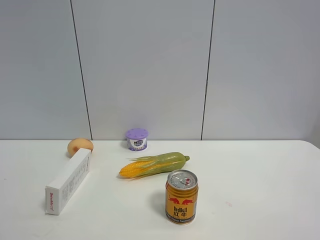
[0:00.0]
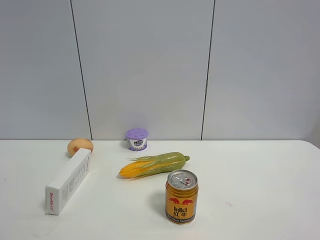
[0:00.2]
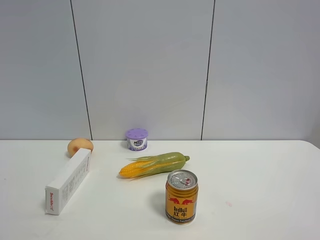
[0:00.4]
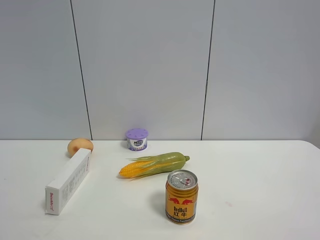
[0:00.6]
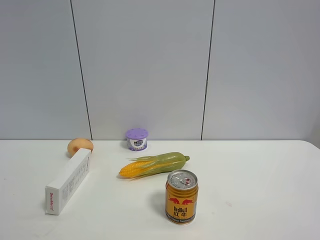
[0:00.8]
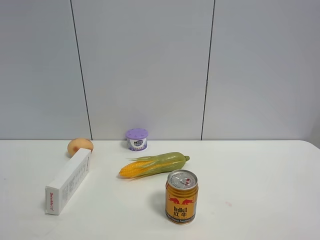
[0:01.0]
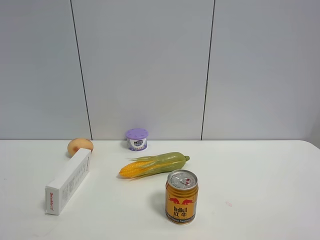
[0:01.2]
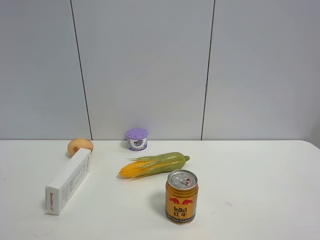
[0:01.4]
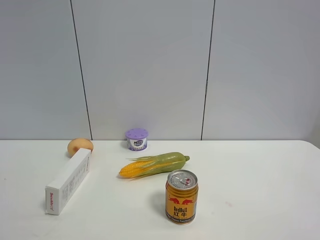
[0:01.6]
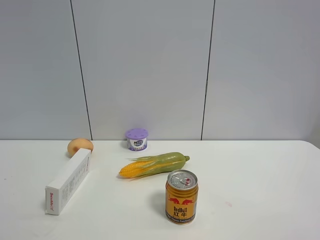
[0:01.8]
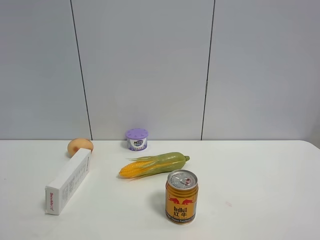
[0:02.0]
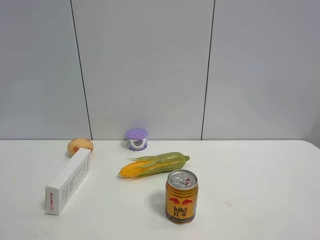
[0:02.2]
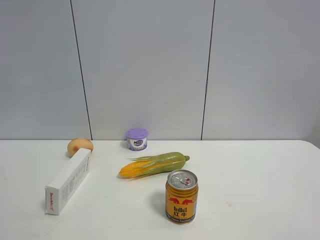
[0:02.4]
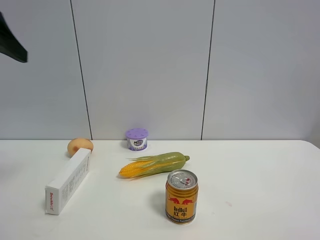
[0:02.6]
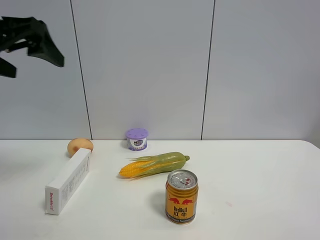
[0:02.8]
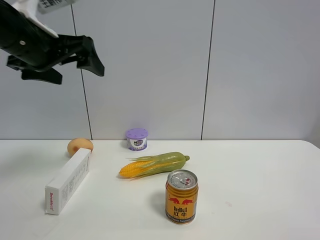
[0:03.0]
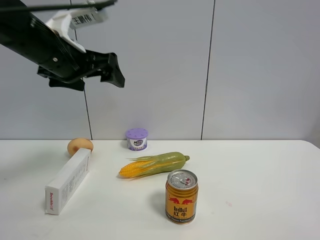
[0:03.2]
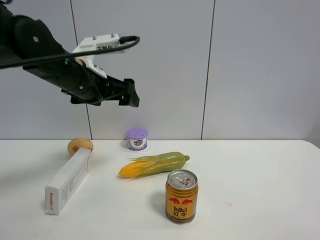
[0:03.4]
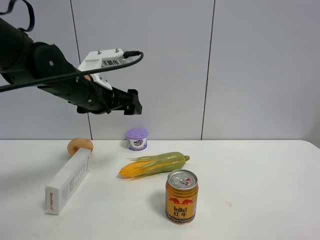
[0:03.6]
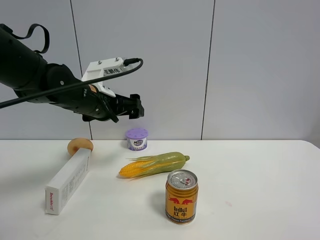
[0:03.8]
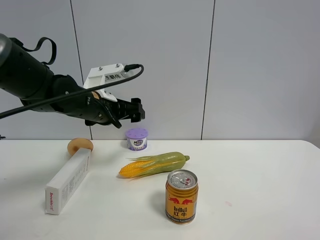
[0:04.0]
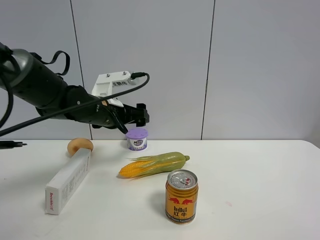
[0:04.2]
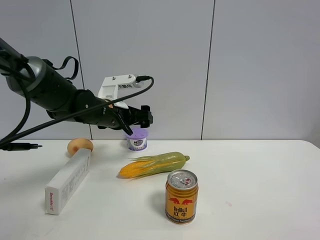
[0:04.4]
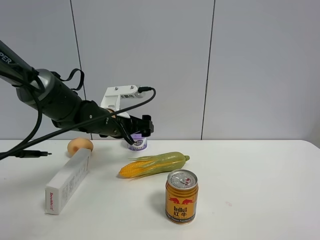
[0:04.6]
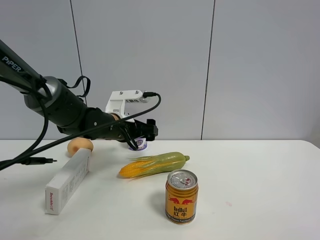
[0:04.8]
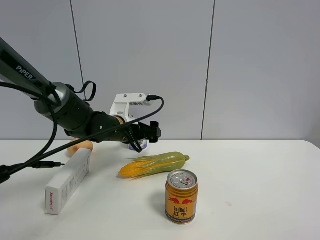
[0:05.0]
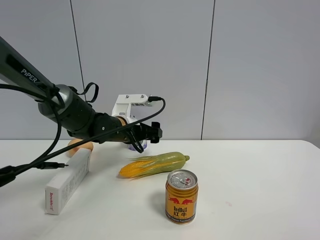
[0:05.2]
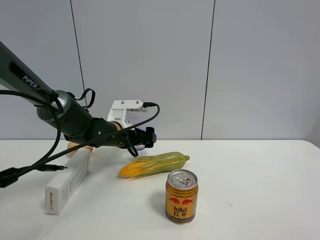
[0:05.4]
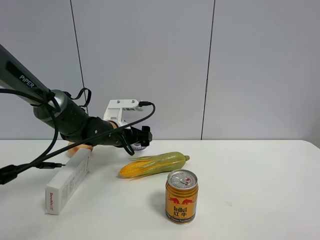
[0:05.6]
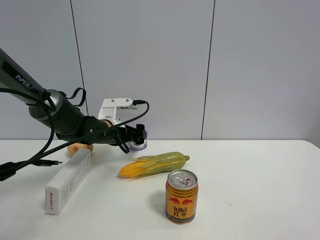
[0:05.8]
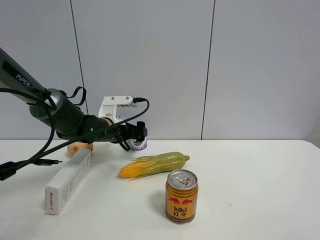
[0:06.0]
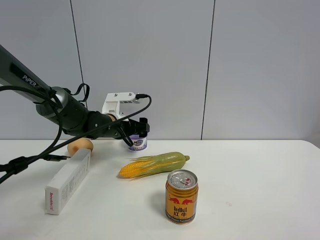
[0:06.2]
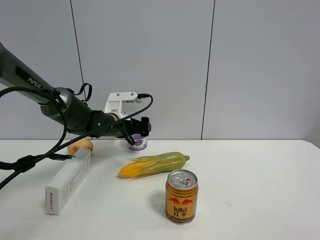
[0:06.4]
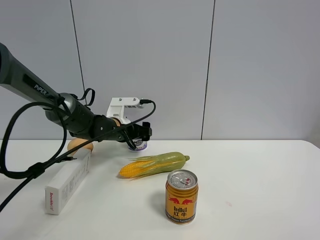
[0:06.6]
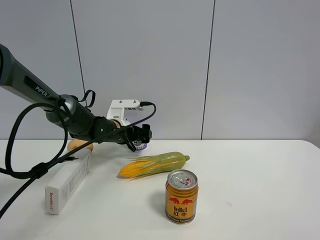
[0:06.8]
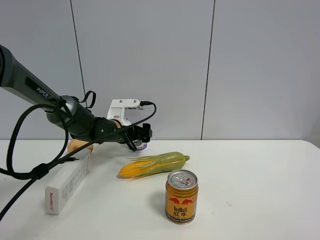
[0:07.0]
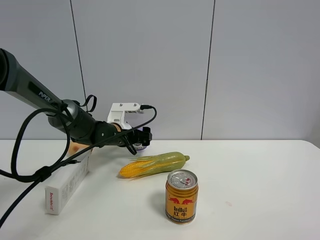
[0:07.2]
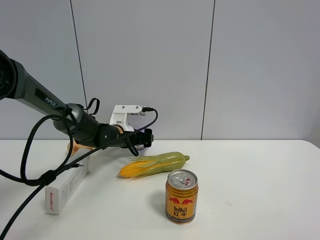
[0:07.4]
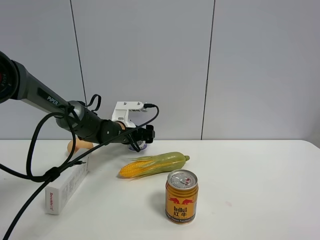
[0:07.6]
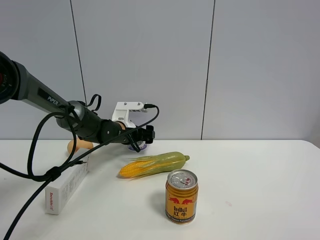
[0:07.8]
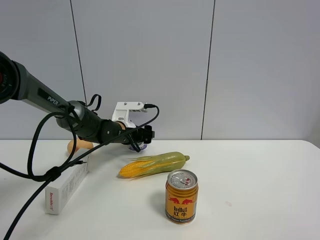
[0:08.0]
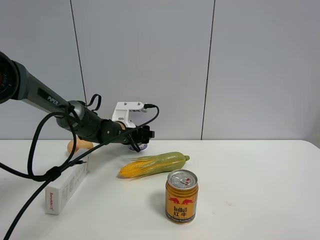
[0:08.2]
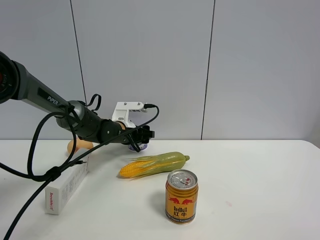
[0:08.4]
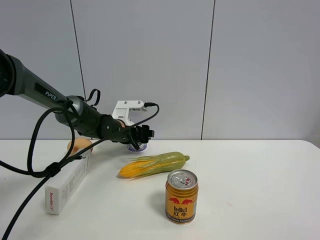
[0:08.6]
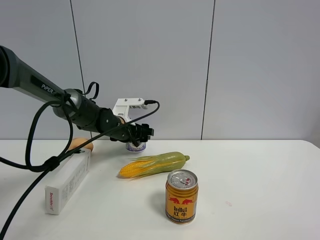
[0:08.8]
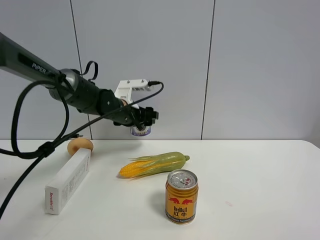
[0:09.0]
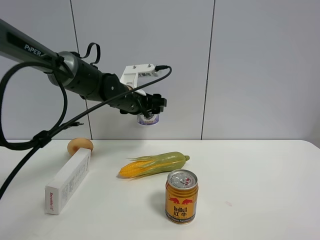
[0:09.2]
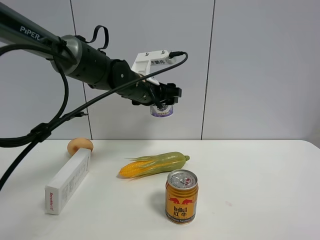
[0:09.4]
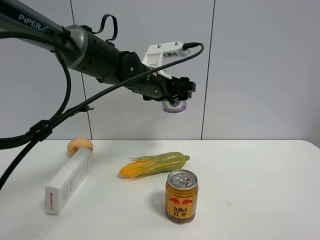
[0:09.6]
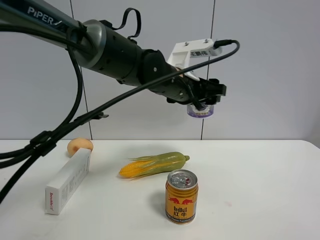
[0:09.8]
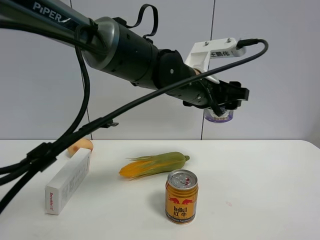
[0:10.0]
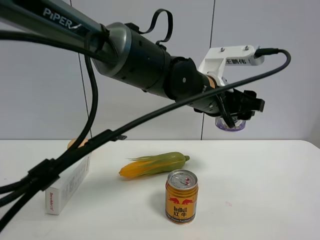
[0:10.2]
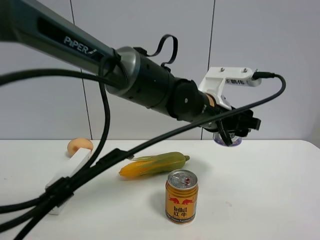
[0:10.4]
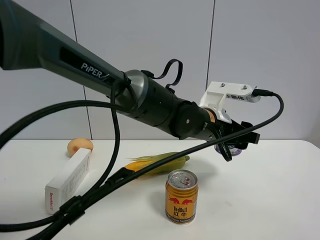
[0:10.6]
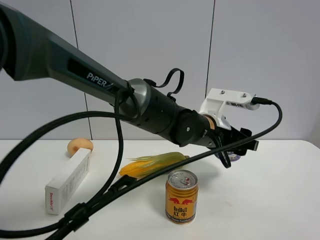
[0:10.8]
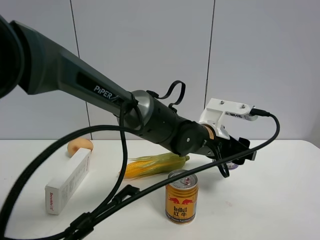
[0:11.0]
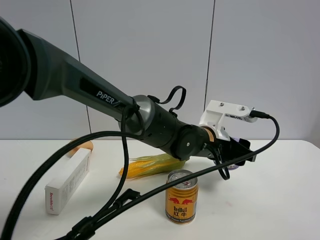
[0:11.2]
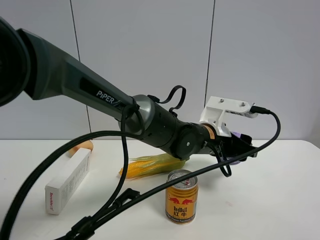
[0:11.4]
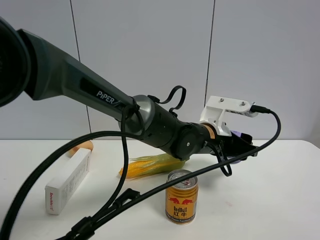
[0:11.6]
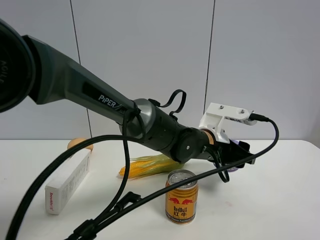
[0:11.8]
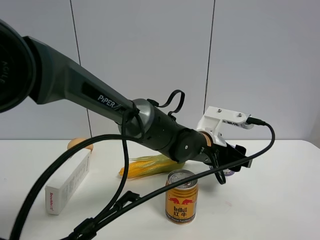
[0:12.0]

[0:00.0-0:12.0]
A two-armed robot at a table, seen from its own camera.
Task of the whole recording: the gripper move the object.
Step, 0.0 to 8.2 s: Grasp the Incense box with the left gripper.
0.0 to 1.6 s: Both grippers stay put.
1.6 to 3.0 s: The left gripper goes about 35 cm forward.
3.0 to 4.4 s: The left gripper goes some 20 cm downward, forward and to the right.
4.4 to 6.0 s: The left gripper changes place by approximately 5 cm.
6.0 to 7.6 s: The left gripper ends up approximately 5 cm from where it was.
7.6 to 9.0 s: The left gripper heads upward, covering about 10 cm, and closes.
9.0 to 10.4 s: The left gripper goes approximately 20 cm to the right and backward.
10.4 to 12.0 s: The left gripper heads downward, covering roughly 5 cm.

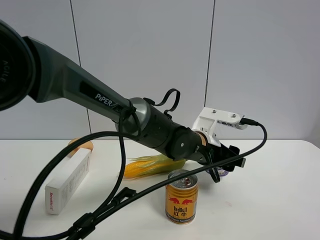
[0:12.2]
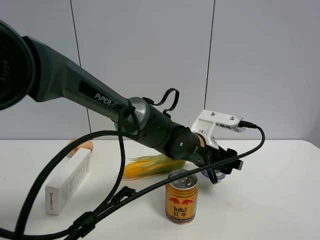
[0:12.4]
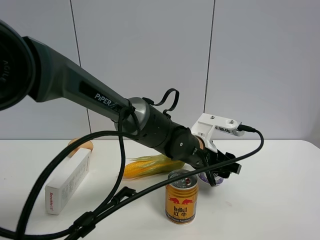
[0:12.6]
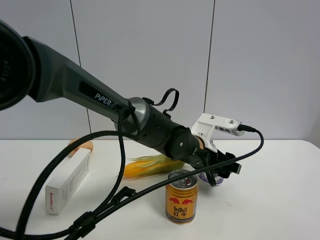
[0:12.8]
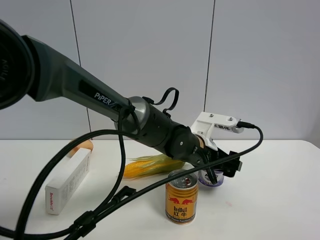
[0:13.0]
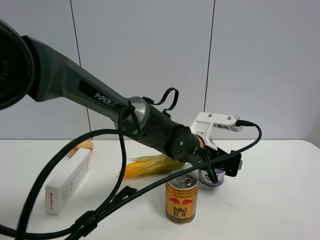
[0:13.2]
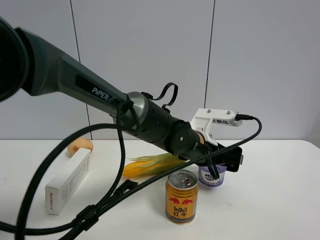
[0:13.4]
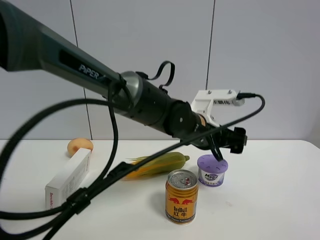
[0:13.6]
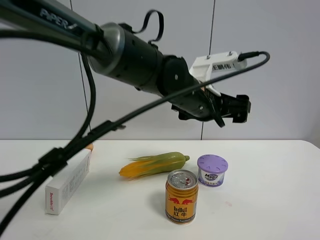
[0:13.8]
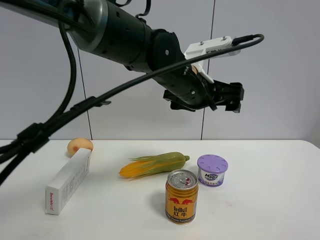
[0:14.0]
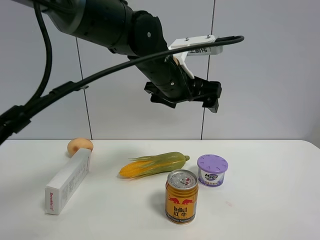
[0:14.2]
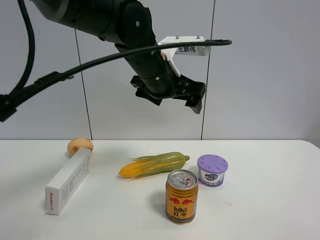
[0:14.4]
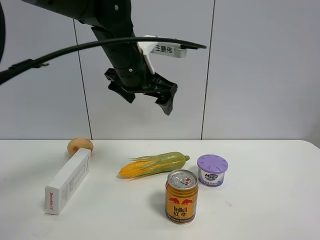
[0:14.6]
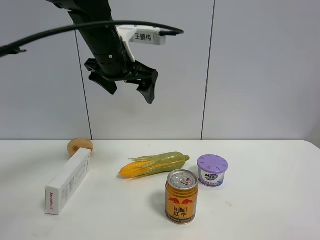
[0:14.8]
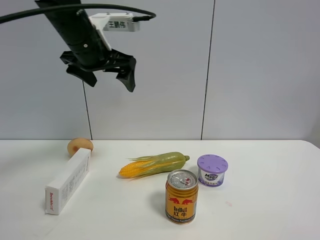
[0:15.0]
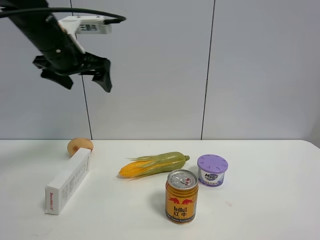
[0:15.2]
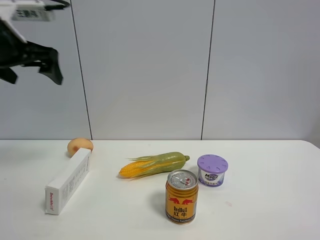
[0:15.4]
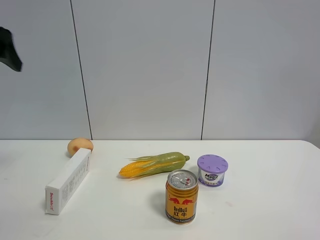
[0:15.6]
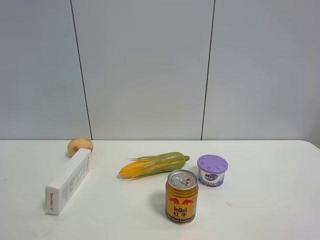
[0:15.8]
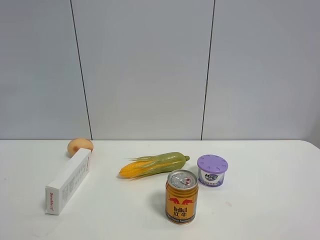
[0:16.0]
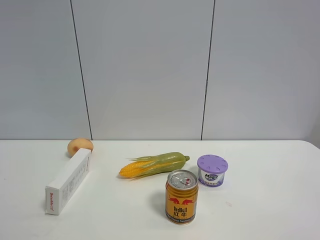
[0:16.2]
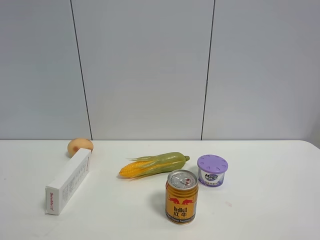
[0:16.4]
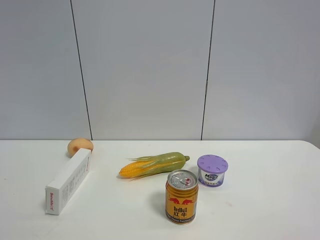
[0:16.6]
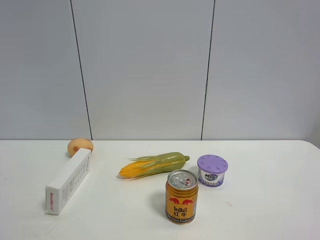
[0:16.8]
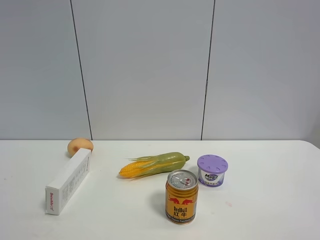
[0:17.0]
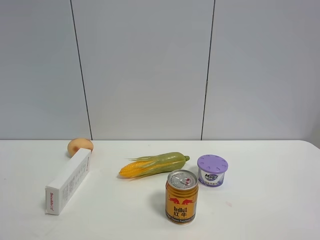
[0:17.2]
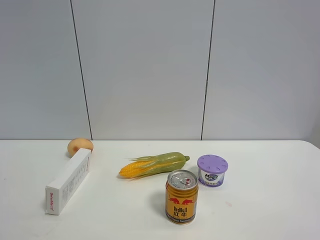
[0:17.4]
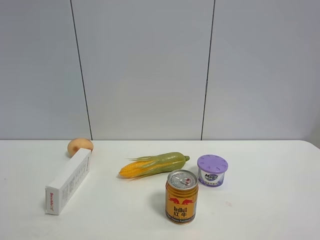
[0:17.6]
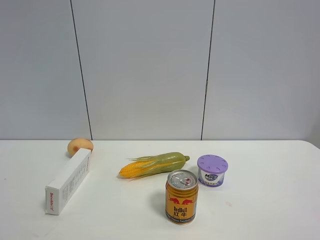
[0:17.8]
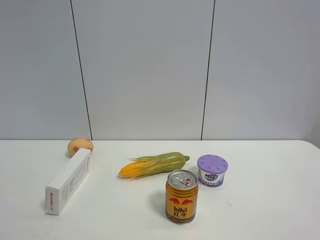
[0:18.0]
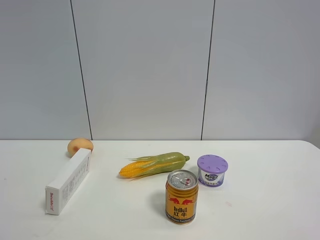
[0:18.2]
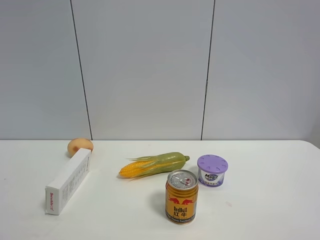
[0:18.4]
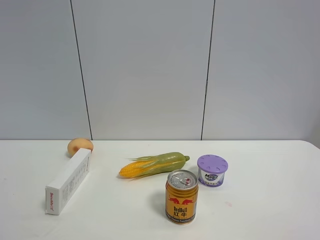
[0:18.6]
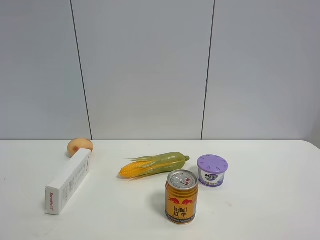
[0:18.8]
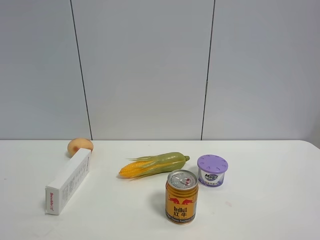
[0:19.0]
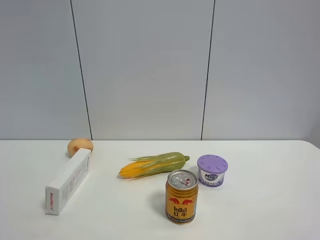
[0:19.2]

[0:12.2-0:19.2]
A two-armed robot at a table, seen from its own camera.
Task of the whole recording: the gripper move the object.
12.2 to 13.6 s: The left gripper shifts approximately 5 cm upward, and opens its fingers.
13.6 to 15.0 s: The left gripper shifts approximately 25 cm to the left and upward.
15.0 to 16.4 s: The left gripper goes about 40 cm backward and to the left.
17.8 to 19.2 s: Neither gripper changes place.

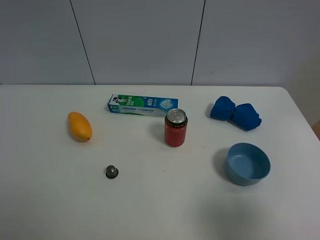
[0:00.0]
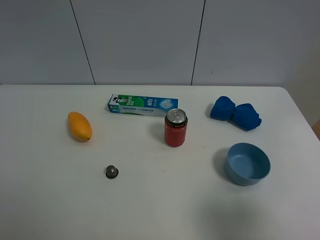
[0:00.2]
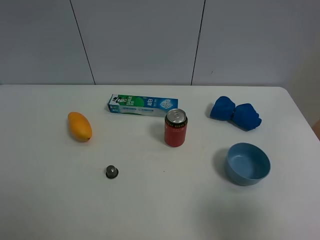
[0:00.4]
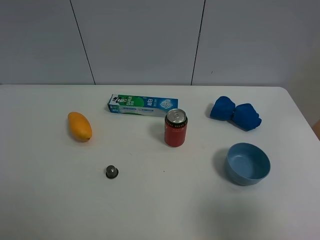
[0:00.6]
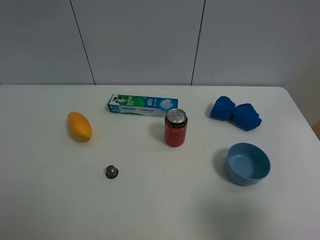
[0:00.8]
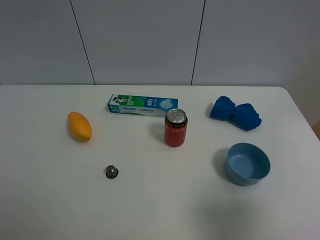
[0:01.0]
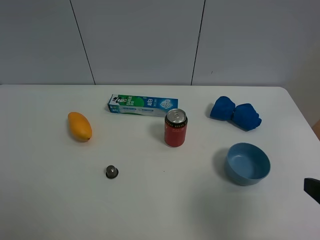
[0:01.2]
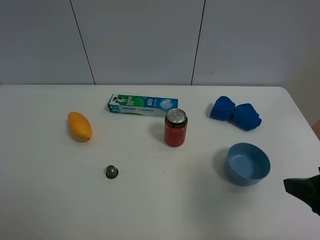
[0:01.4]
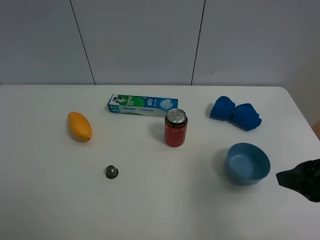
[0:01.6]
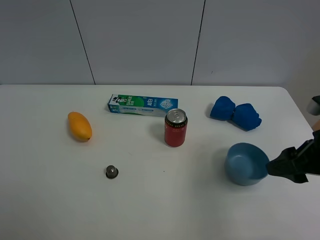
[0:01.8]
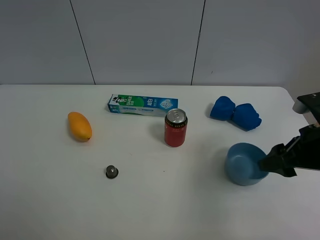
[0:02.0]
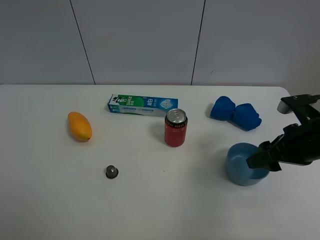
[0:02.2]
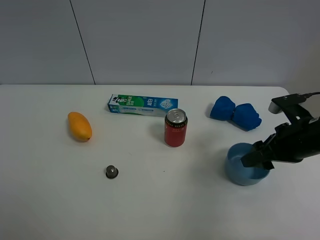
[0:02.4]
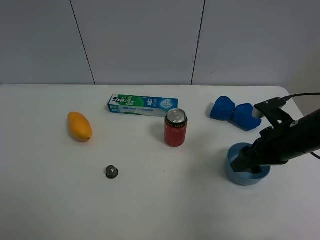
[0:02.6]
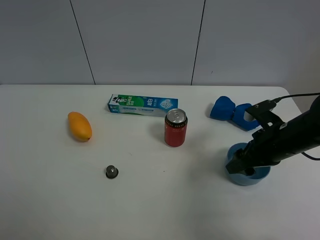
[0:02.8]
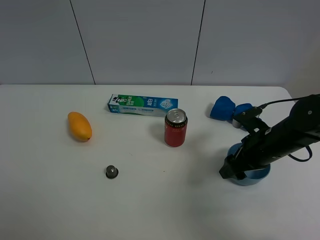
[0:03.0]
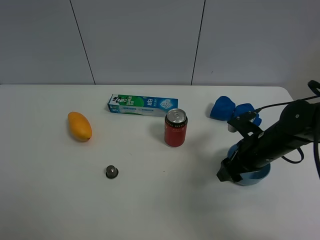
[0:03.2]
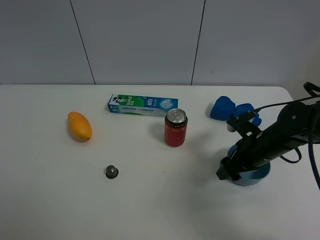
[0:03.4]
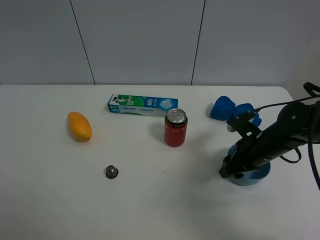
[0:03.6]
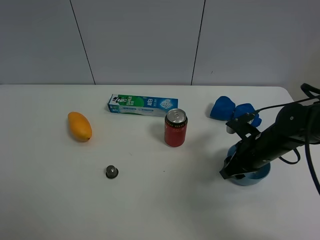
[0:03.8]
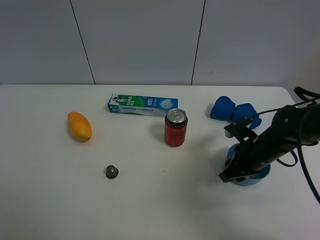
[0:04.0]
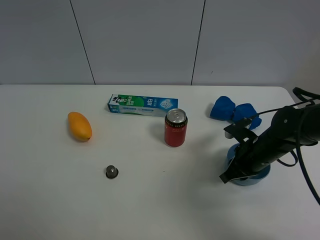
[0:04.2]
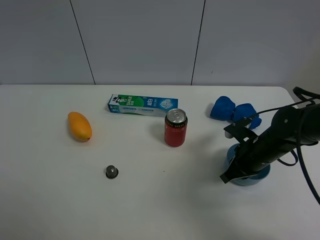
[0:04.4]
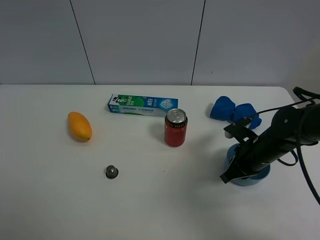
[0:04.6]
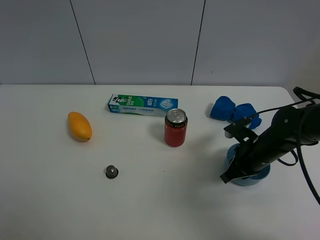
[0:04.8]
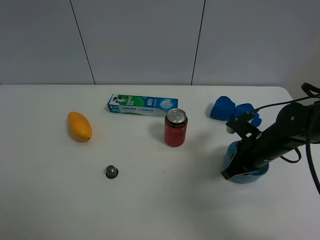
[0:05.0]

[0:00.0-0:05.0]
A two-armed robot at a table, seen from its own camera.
Task of the whole recording: the gripper move the object.
Step, 0.0 to 4.4 s: Grasp the blue bowl with the right gripper.
0.0 to 1.6 s: The right gripper shifts approximately 10 cm forward.
1.6 to 3.4 s: The right gripper travels downward, forward and to the left by approximately 20 cm.
3.4 to 5.0 s: The right gripper closes up.
